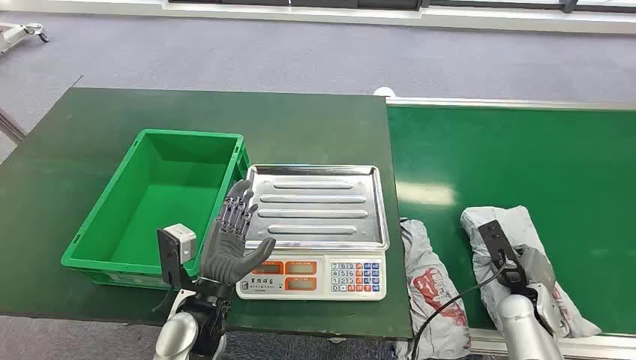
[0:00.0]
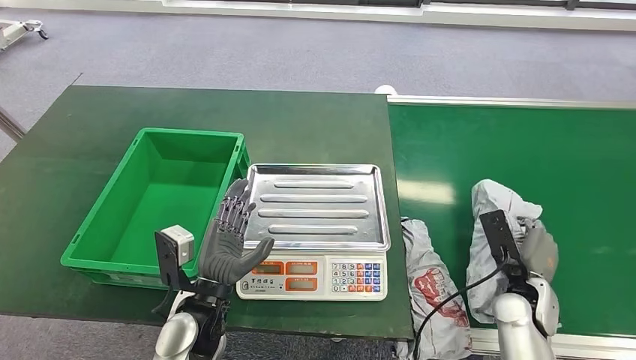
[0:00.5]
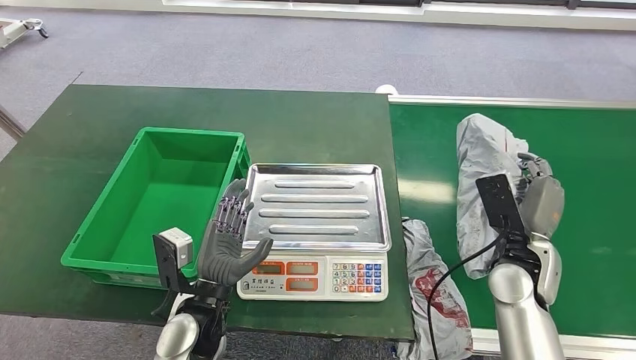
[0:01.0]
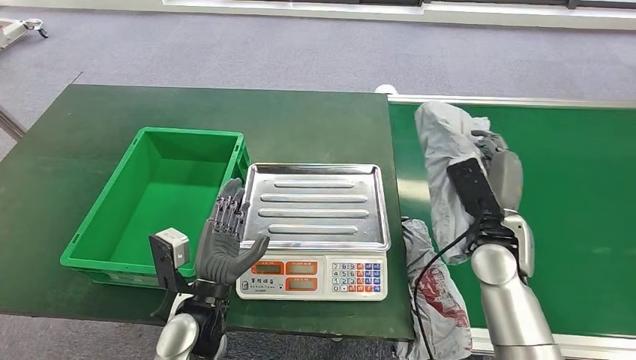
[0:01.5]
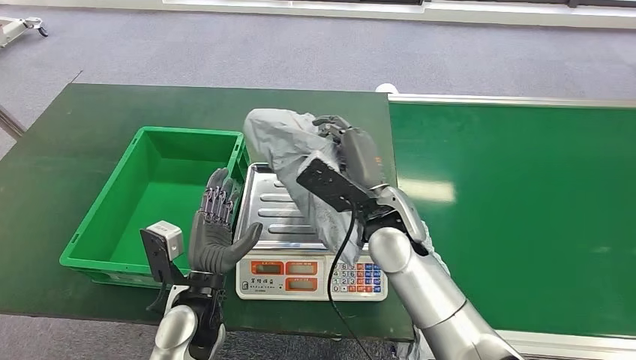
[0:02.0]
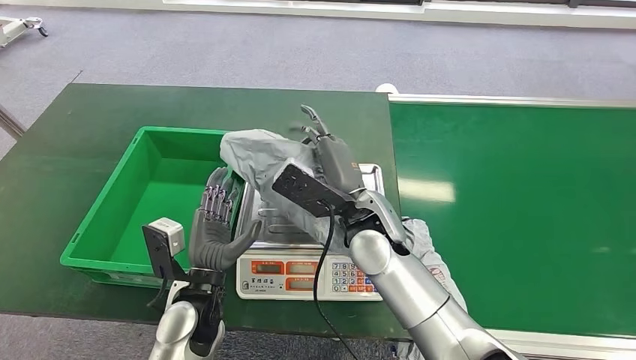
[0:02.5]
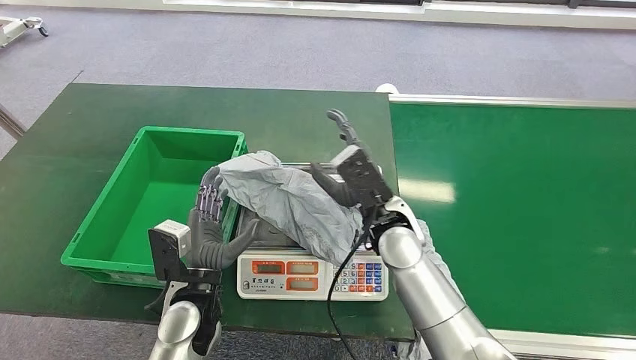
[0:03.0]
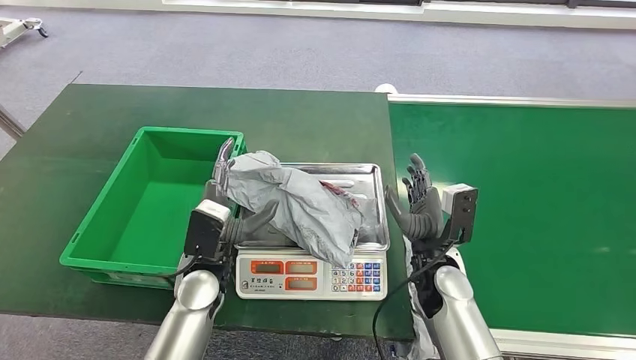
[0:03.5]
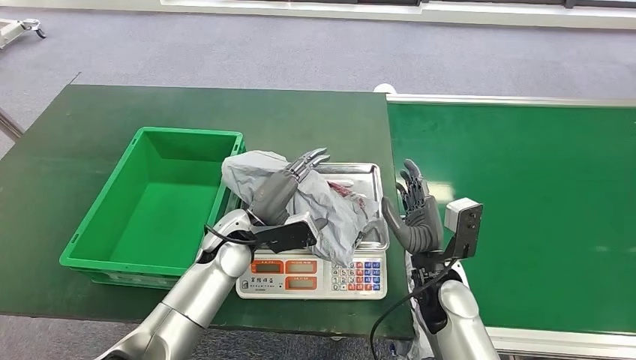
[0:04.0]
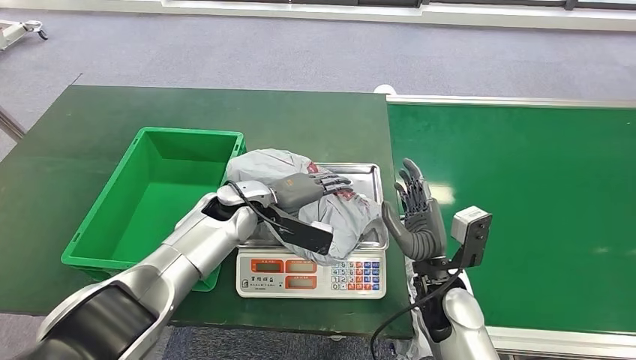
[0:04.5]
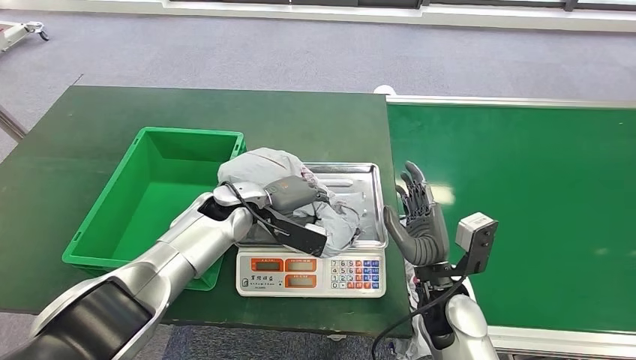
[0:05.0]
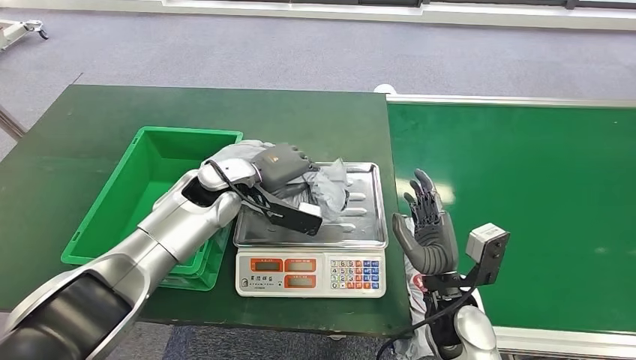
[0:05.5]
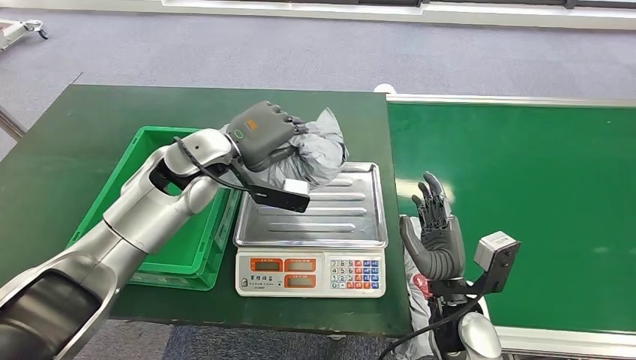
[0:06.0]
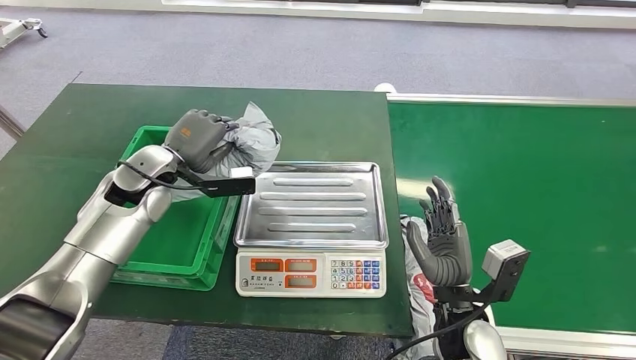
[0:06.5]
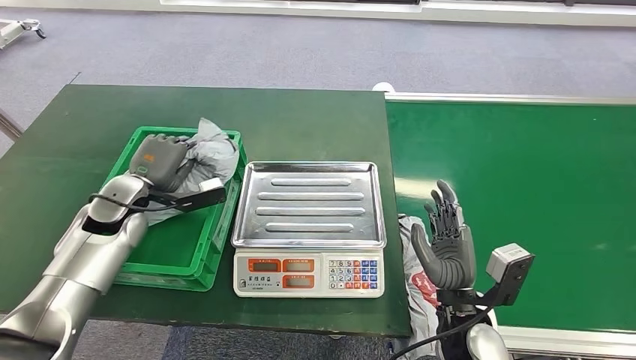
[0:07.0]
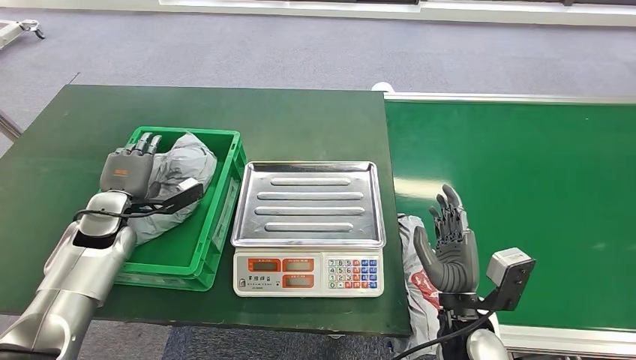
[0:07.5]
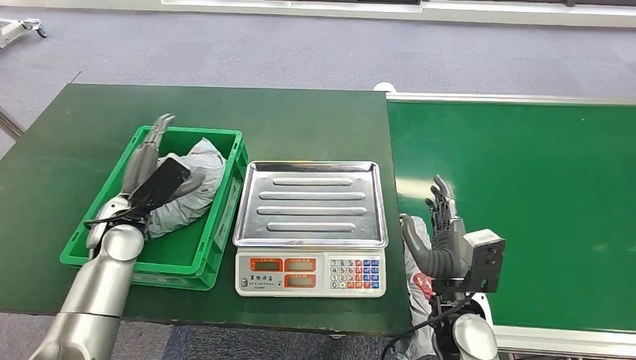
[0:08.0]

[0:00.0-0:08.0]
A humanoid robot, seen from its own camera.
Step, 0:00.0 to 0:00.5: Pick up the package from the conveyor belt.
Step, 0:02.0 to 0:03.5: Place the package onto the inbound machine.
Step, 0:05.0 to 0:06.0: Pick up the package from the inbound machine.
Step, 0:07.0 to 0:08.0: Place the package into the parcel locker.

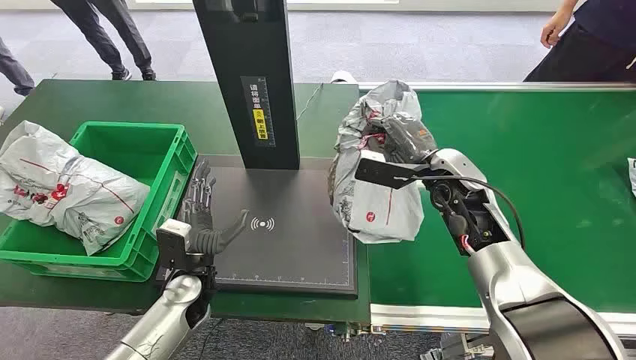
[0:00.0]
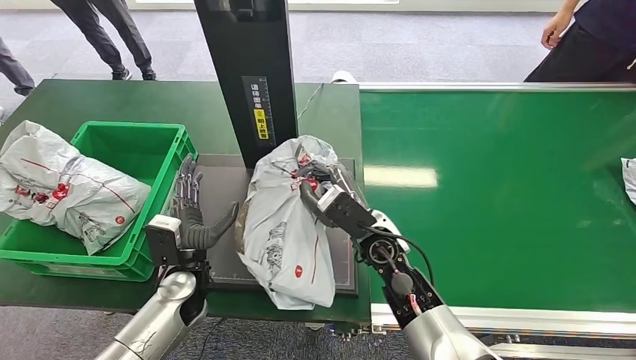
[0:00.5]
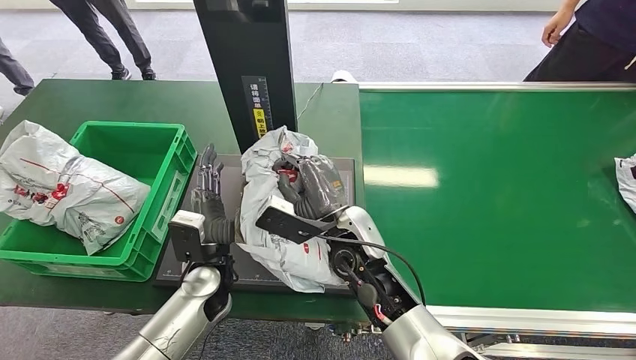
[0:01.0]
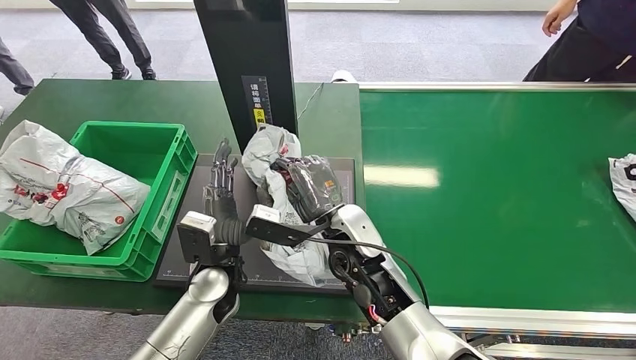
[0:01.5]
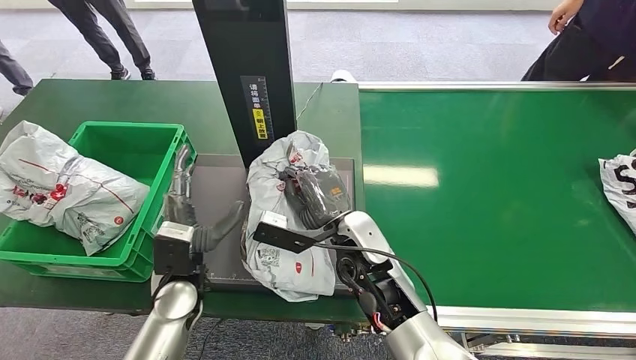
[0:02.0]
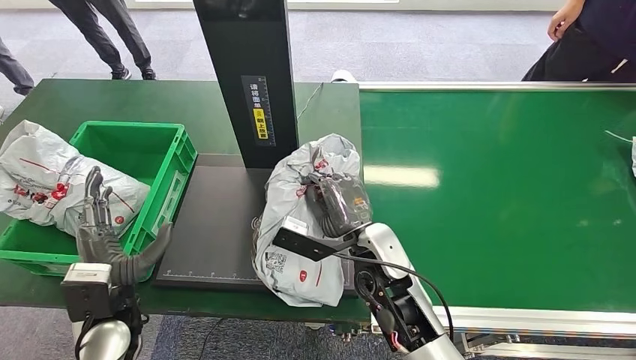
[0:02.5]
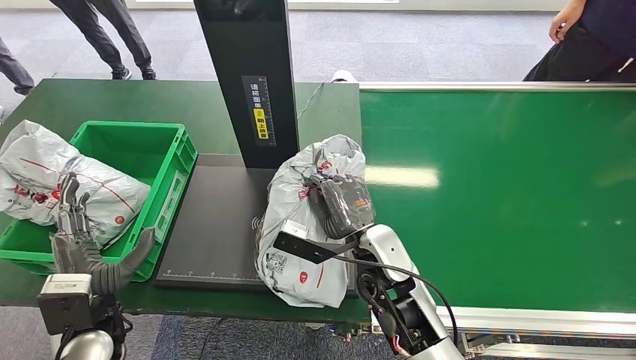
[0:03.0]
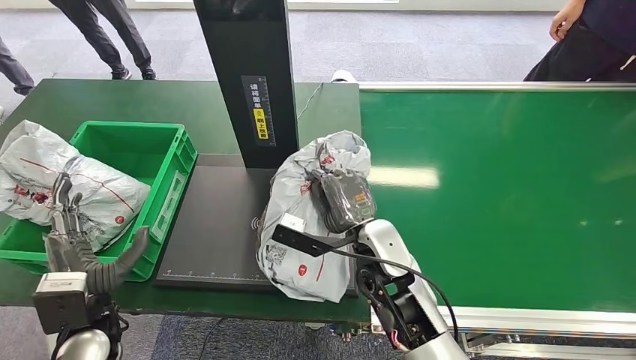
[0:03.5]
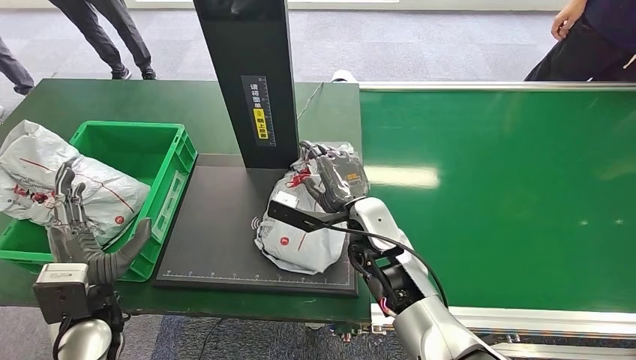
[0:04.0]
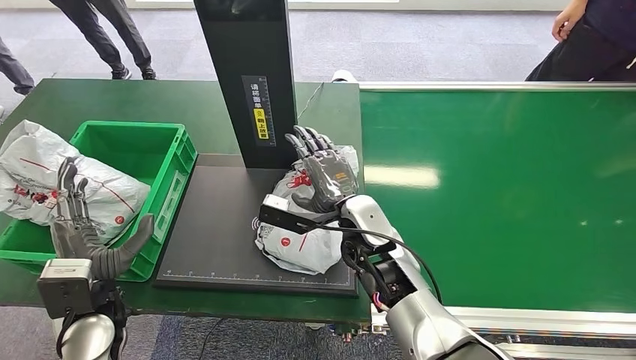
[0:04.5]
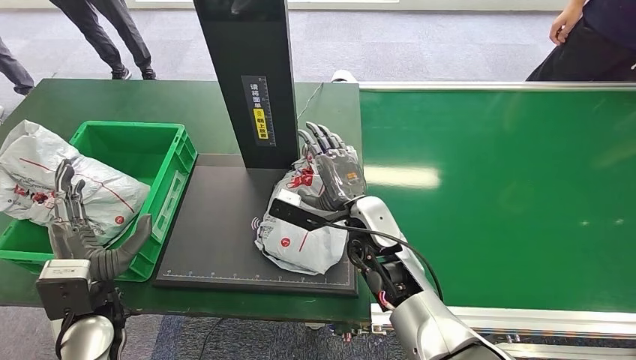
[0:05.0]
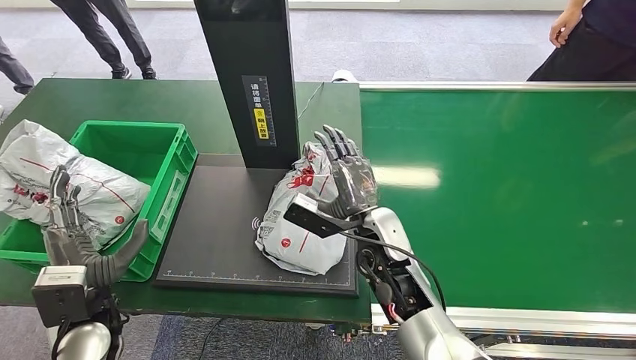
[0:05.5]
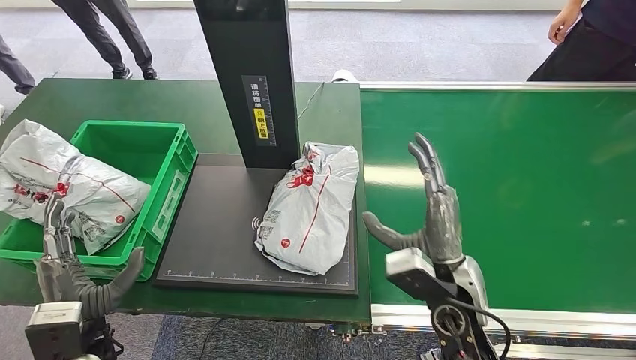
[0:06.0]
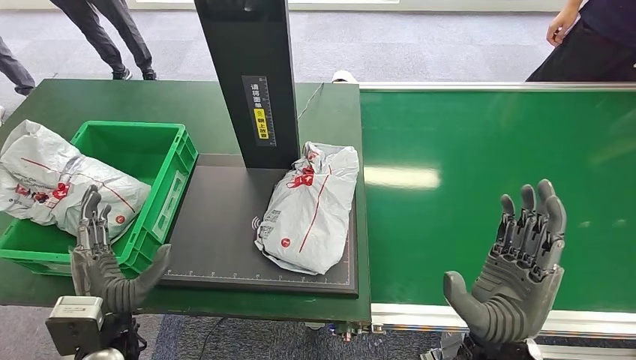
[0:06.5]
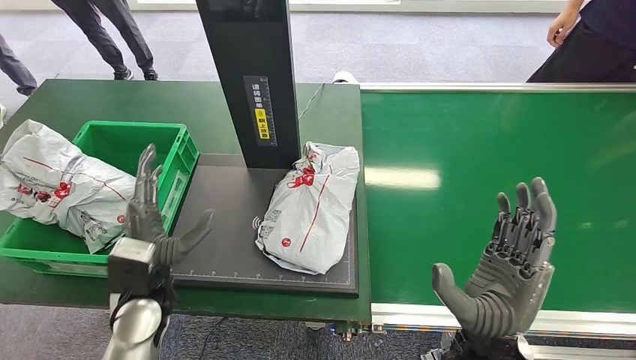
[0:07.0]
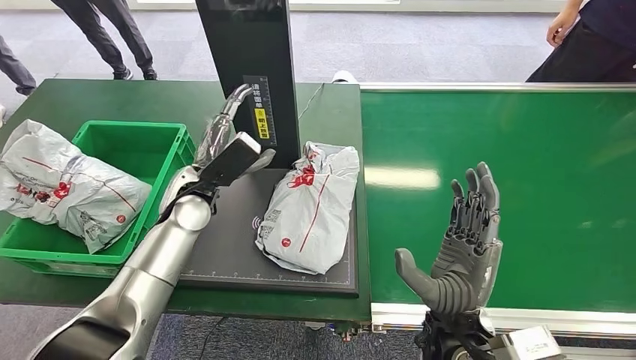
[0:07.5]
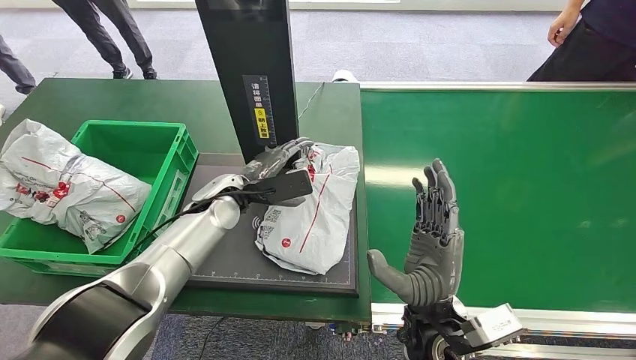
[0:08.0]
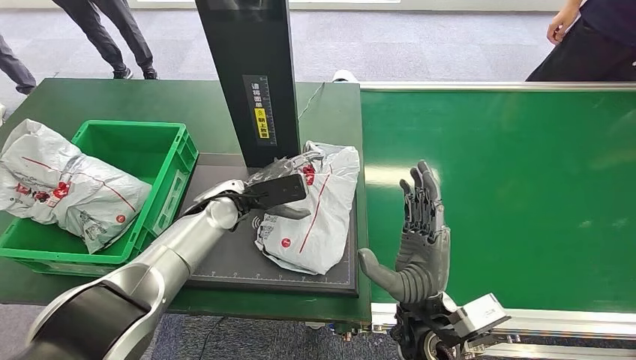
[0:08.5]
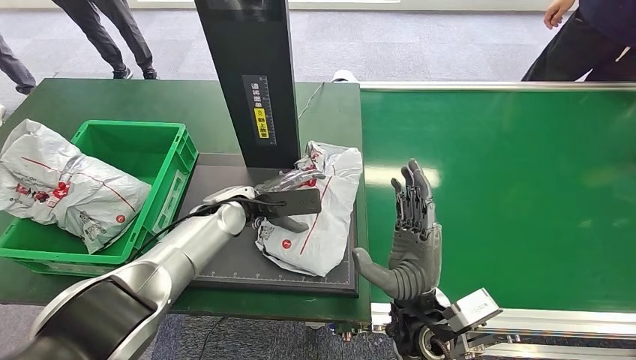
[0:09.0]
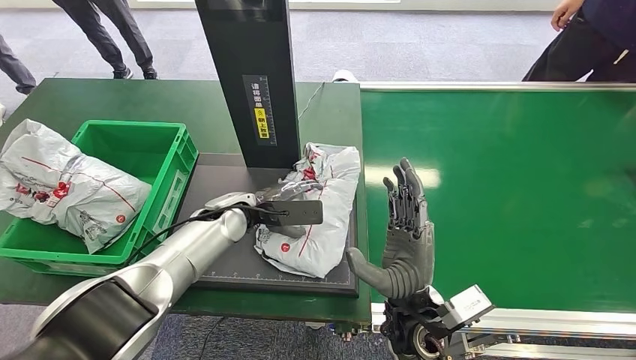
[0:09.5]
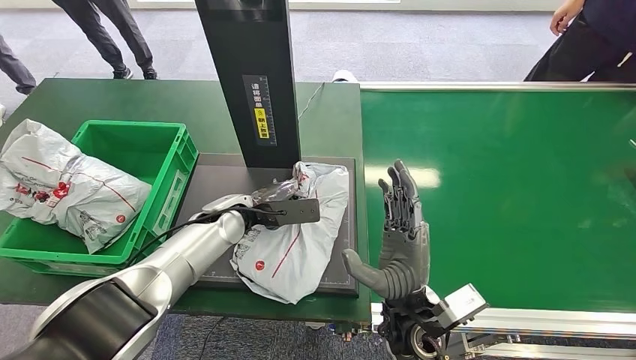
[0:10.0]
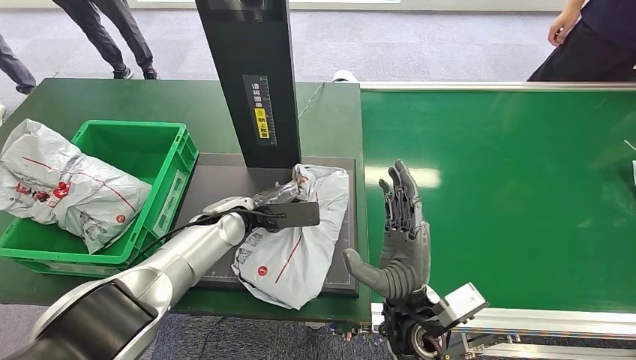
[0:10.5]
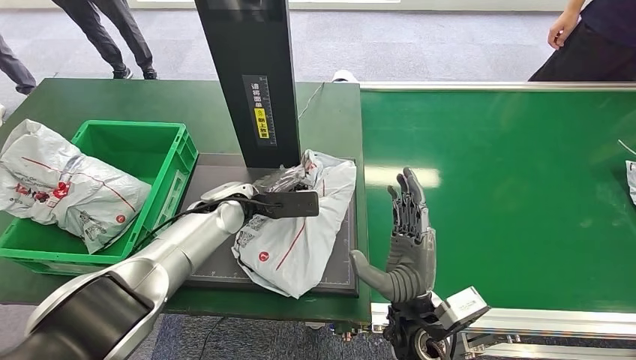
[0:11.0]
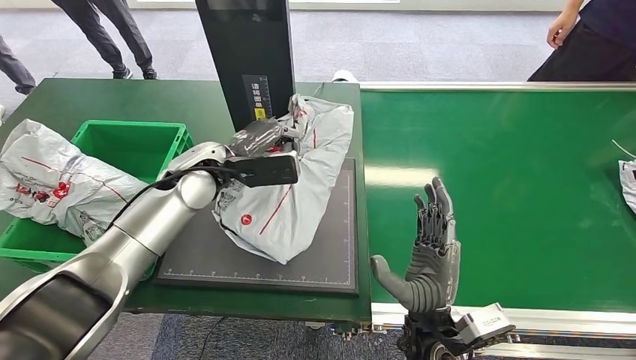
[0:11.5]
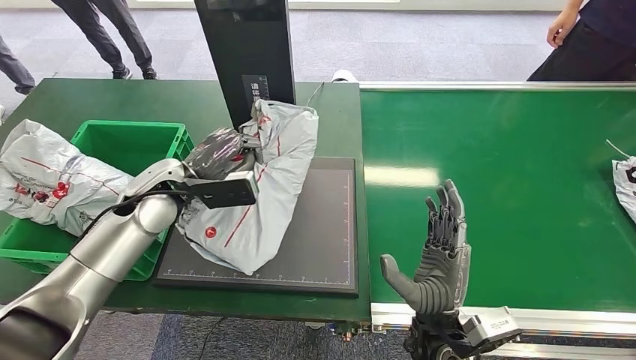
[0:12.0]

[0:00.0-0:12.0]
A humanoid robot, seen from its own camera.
0:04.0 to 0:06.0: The right hand moves to the right and backward, some 15 cm.
0:06.0 to 0:08.0: The left hand travels forward and to the right by about 25 cm, while the right hand moves some 5 cm.
